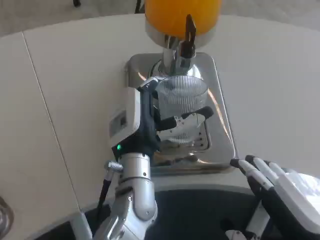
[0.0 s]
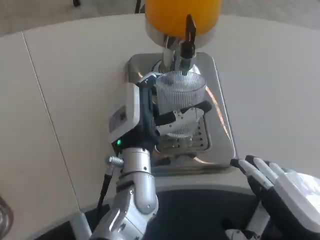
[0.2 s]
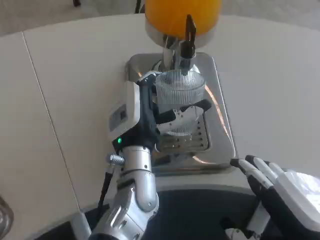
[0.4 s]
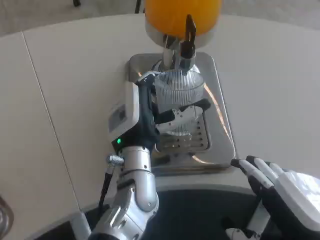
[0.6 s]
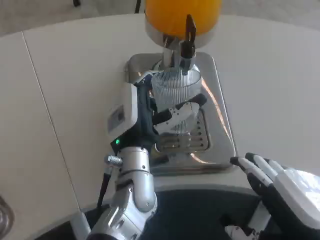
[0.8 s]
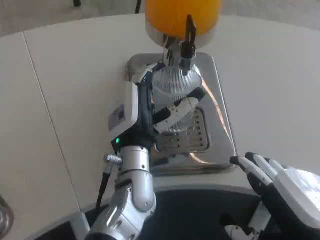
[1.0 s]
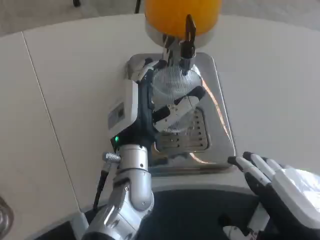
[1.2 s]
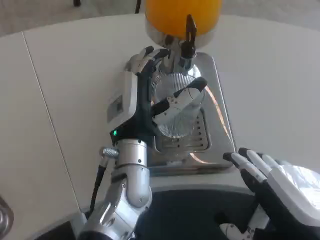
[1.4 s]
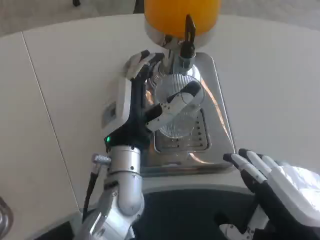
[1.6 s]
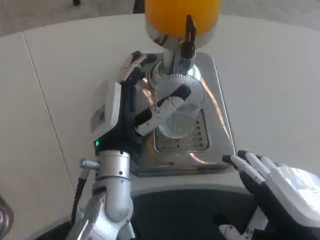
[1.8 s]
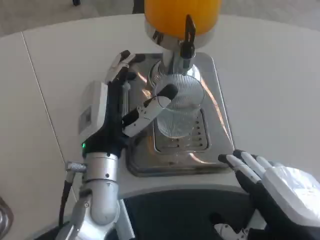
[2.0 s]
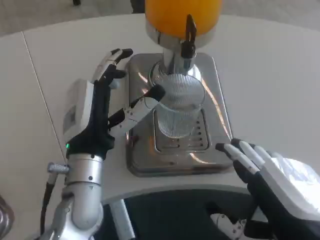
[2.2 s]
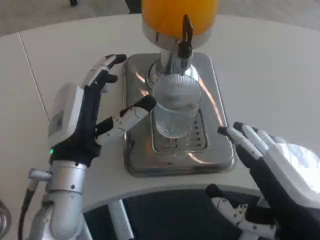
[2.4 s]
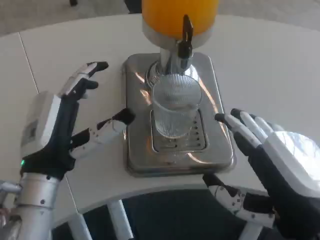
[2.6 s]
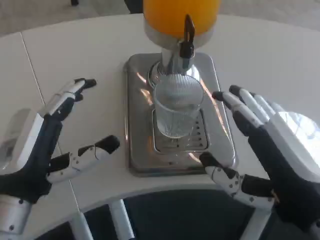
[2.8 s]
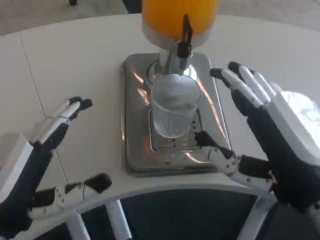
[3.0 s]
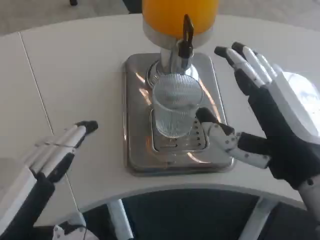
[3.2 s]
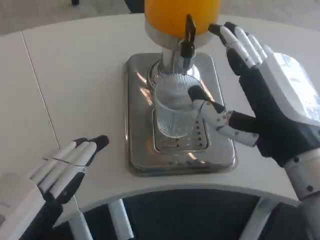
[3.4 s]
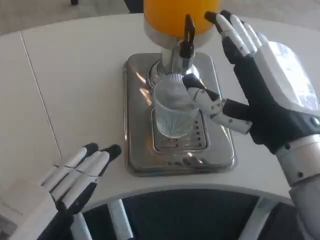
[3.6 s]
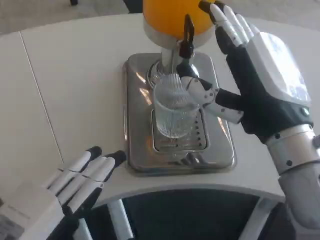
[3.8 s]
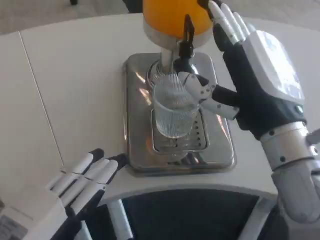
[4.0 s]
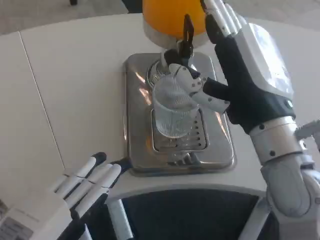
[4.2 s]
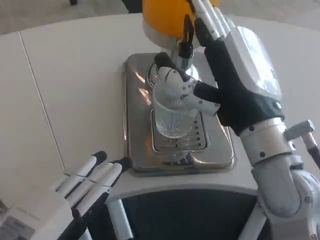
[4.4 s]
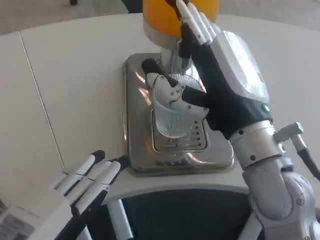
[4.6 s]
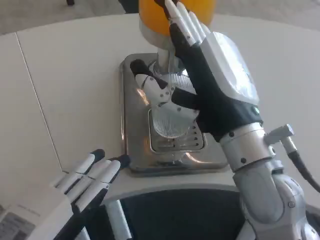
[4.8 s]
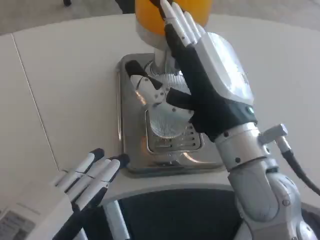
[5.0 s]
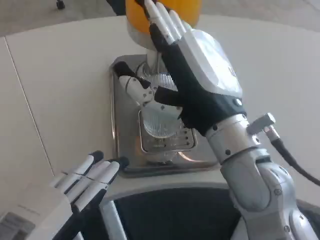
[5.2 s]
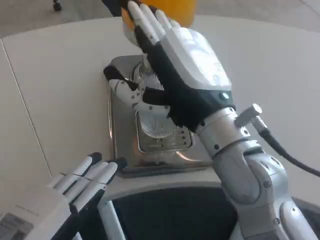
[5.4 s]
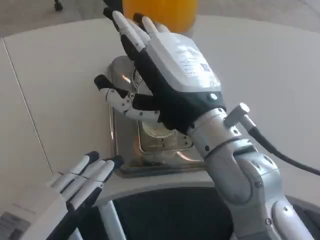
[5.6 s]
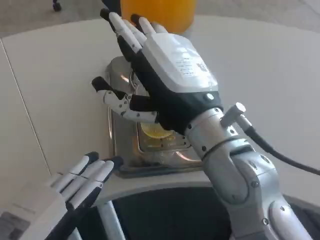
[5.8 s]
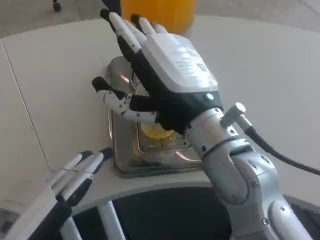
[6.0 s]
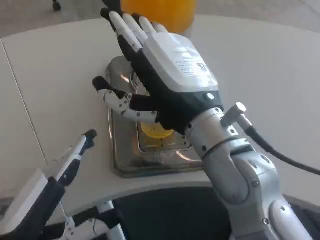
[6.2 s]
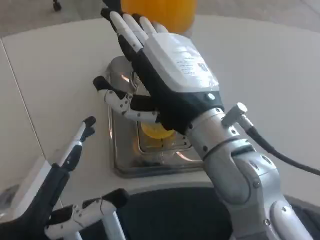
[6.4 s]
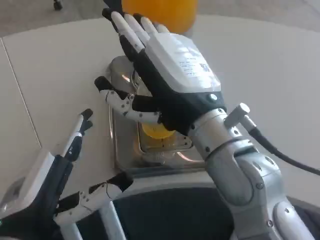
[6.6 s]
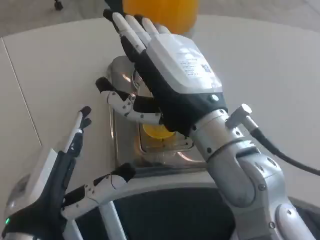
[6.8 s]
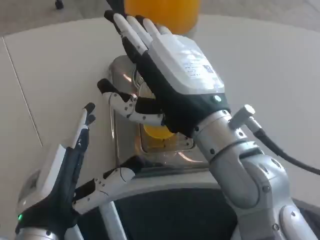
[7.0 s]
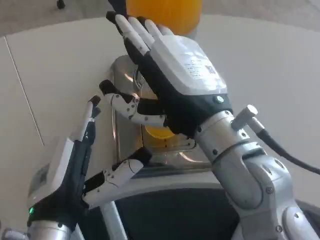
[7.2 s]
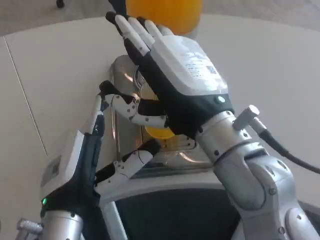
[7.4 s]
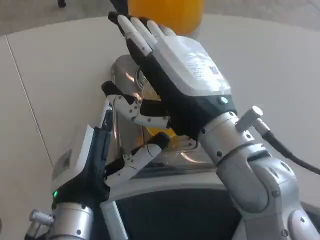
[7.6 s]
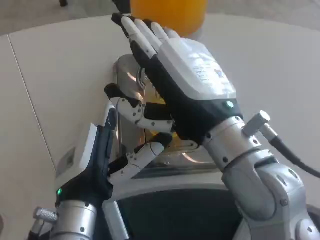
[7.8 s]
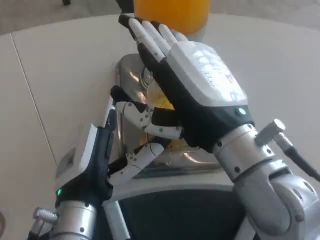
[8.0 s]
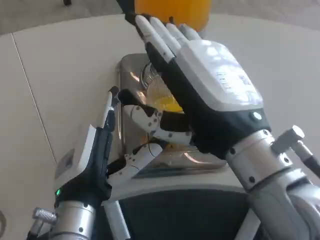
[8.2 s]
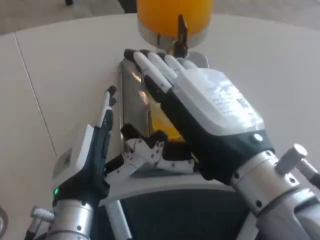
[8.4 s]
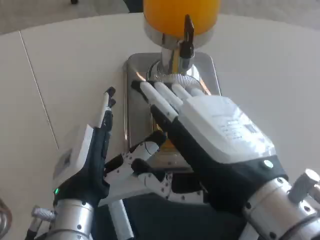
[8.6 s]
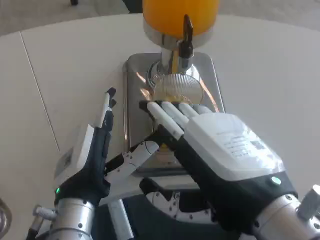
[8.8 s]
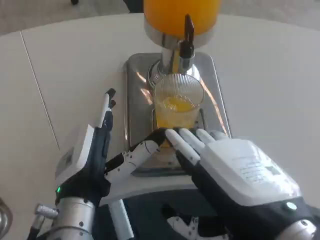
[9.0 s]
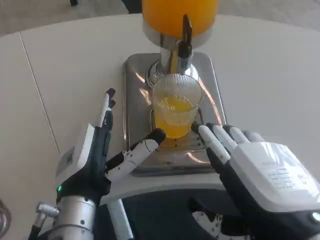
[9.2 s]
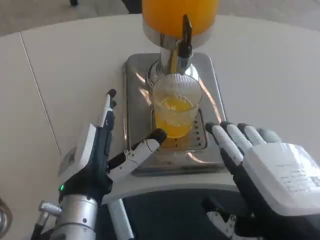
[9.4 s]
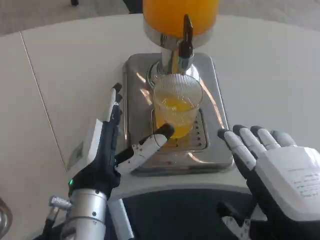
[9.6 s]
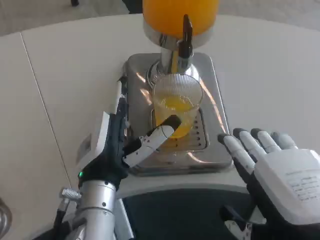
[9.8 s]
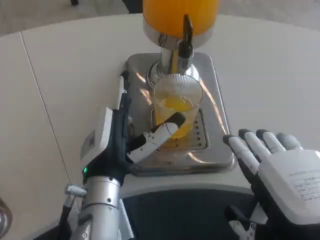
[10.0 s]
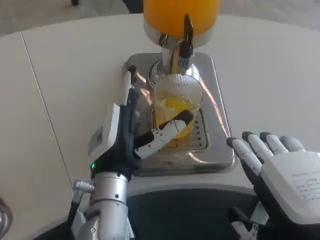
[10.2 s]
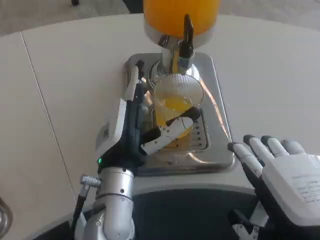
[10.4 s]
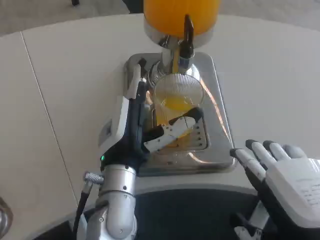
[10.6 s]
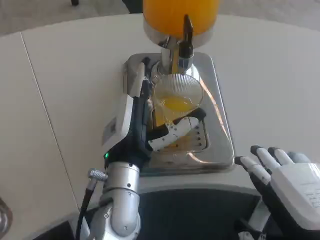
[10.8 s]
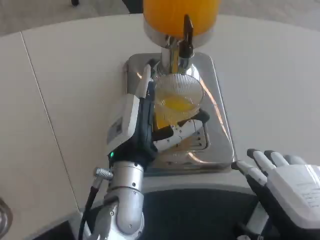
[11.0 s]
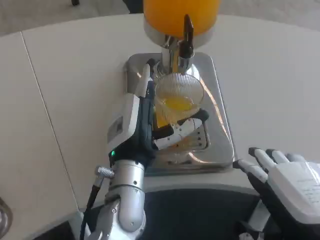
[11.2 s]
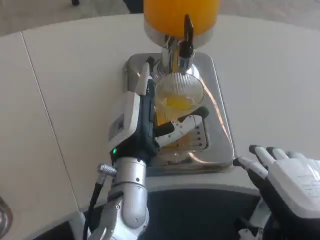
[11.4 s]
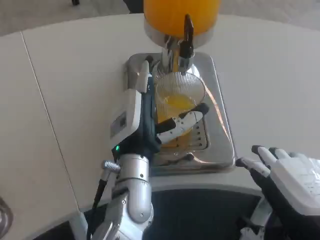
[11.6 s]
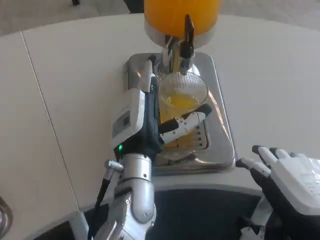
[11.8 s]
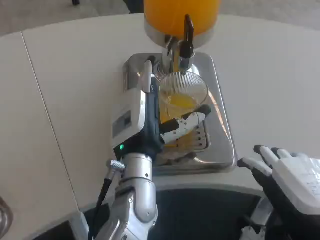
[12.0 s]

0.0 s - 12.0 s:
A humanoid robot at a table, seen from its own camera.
Task of the whole recording: Grasp the cup under the faucet to collect the drink, then remove the cup.
0.0 s - 1.6 s: The hands move only a little.
1.6 s - 3.0 s: The left hand is displaced to the left and backward by roughly 20 cm.
3.0 s - 4.4 s: The left hand heads backward, covering some 5 cm. Meanwhile the right hand goes roughly 10 cm forward.
4.4 s - 6.0 s: The right hand changes place by approximately 5 cm.
6.0 s - 7.6 s: The left hand goes about 15 cm to the right and forward.
7.6 s - 9.0 s: The right hand shifts roughly 10 cm backward.
9.0 s - 10.4 s: The left hand moves forward, about 5 cm.
10.4 s - 12.0 s: The hands stay close to where they were, moving slightly.

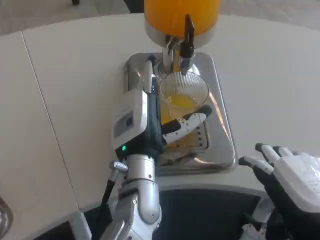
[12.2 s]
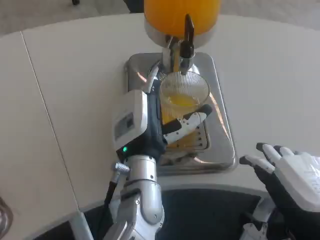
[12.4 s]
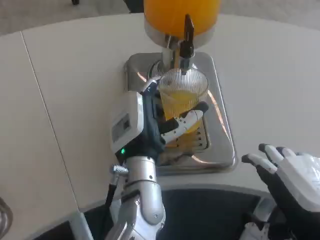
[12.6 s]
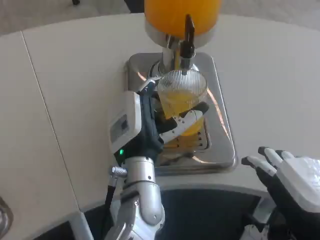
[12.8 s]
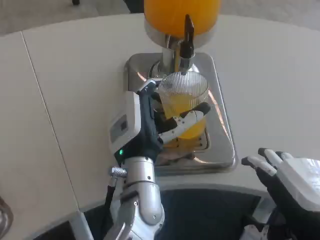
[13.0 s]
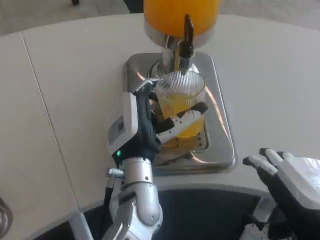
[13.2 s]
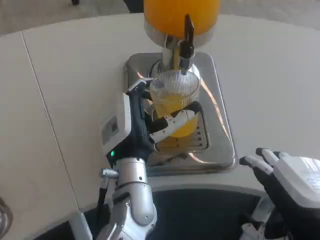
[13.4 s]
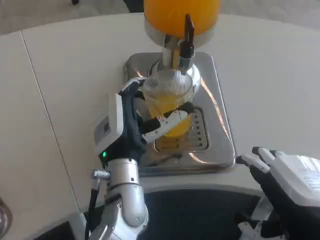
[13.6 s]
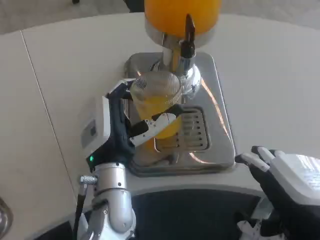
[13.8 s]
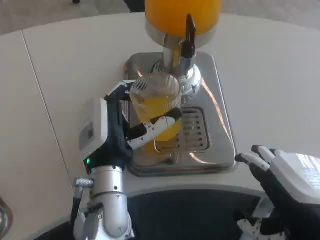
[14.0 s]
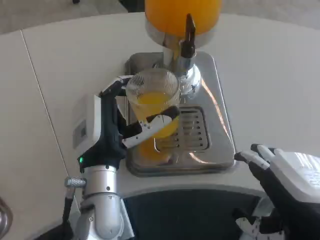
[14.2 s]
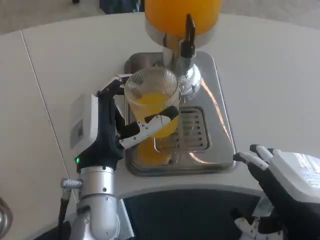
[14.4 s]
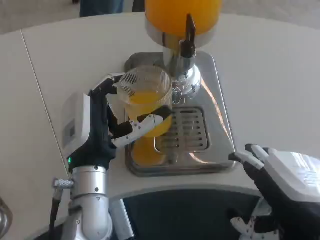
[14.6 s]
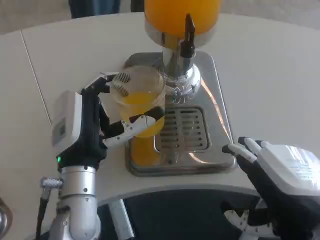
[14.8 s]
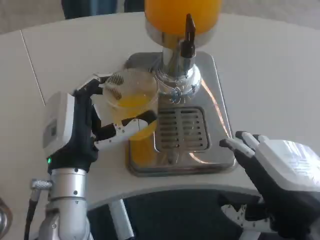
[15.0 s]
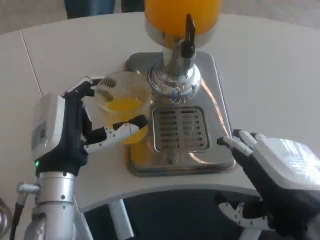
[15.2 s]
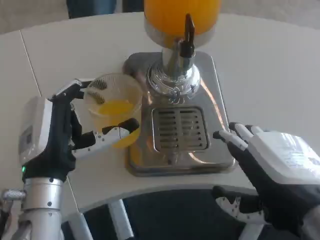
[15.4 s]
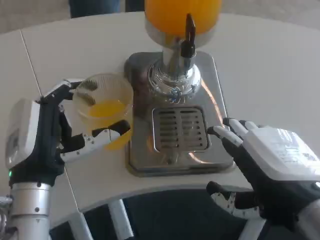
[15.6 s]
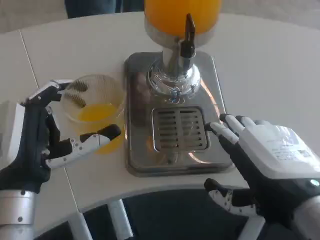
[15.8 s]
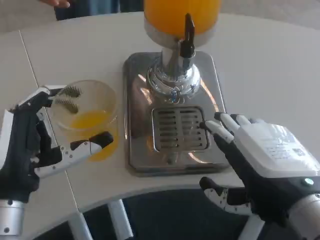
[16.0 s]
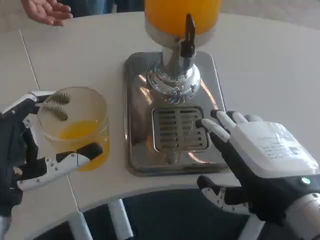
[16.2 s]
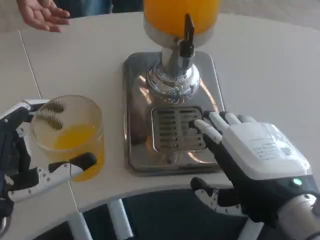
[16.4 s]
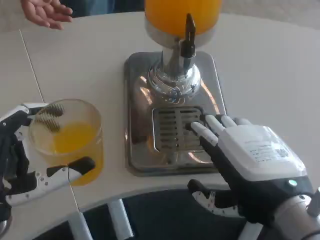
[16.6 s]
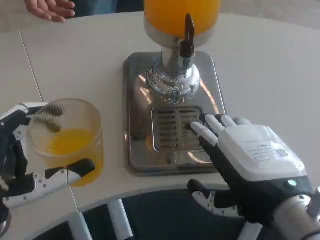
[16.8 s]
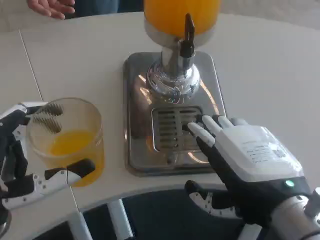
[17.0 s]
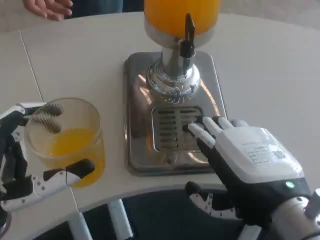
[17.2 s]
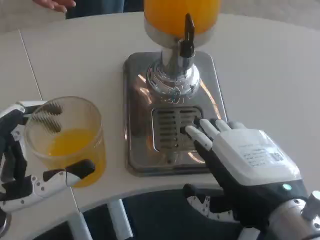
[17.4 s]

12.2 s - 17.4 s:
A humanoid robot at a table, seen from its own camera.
Task of the whole recording: Grasp the cup under the faucet to collect the drink, then remove the cup.
12.2 s - 14.0 s: The hands move only a little.
14.0 s - 15.6 s: The left hand shifts some 10 cm to the left and backward.
15.6 s - 17.4 s: The left hand goes some 10 cm backward.

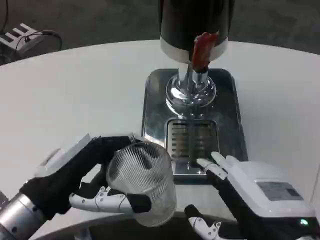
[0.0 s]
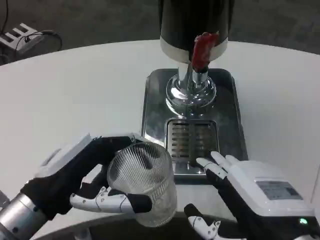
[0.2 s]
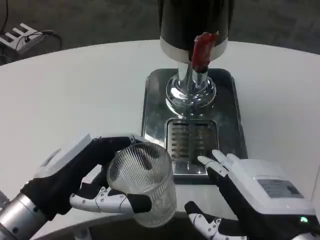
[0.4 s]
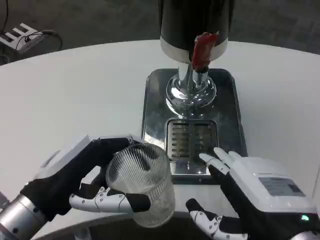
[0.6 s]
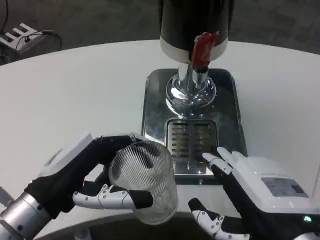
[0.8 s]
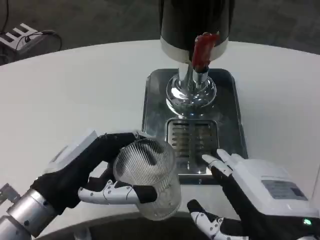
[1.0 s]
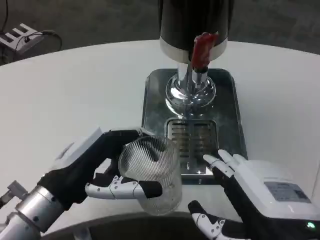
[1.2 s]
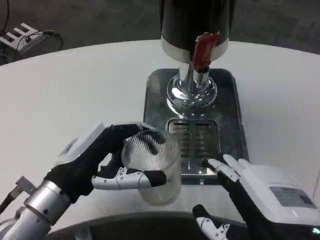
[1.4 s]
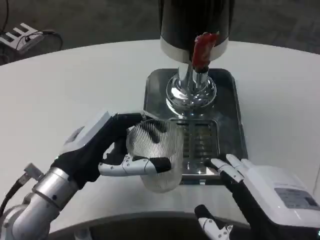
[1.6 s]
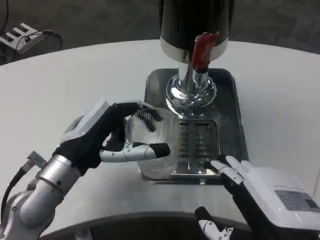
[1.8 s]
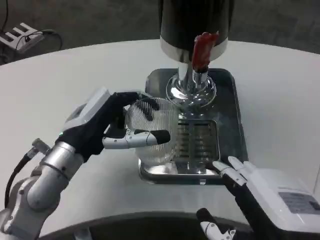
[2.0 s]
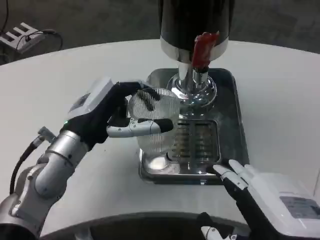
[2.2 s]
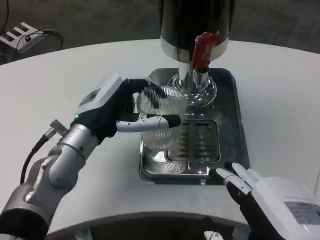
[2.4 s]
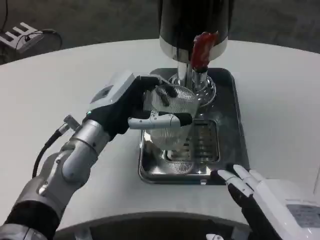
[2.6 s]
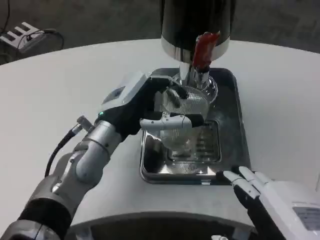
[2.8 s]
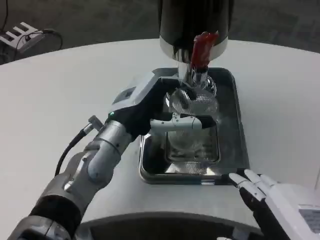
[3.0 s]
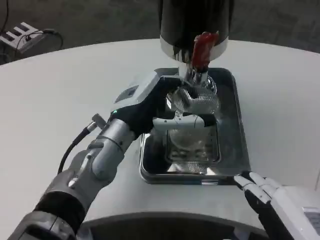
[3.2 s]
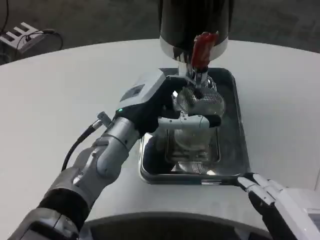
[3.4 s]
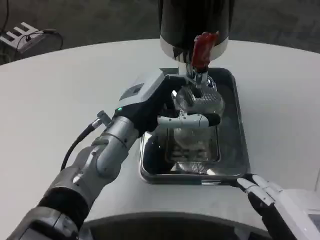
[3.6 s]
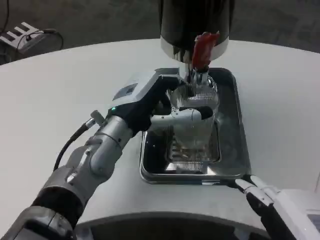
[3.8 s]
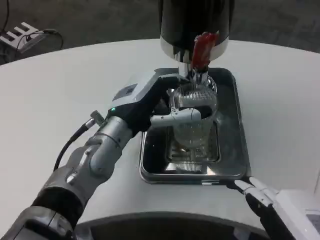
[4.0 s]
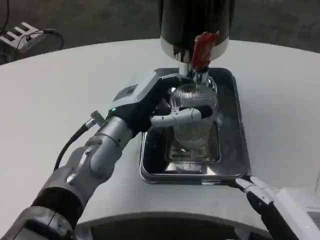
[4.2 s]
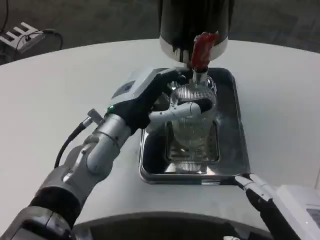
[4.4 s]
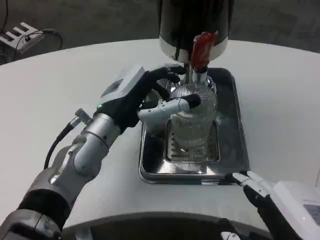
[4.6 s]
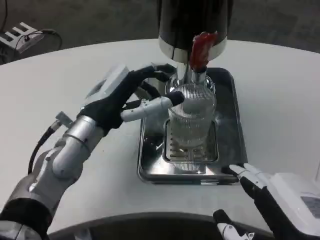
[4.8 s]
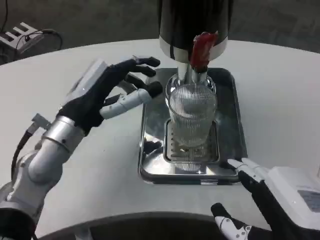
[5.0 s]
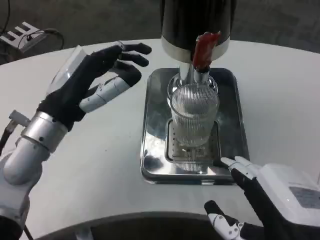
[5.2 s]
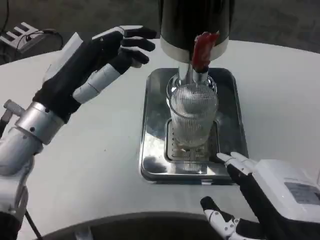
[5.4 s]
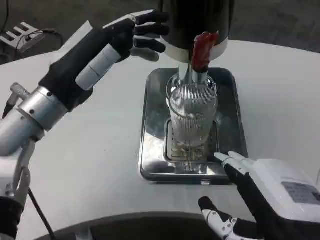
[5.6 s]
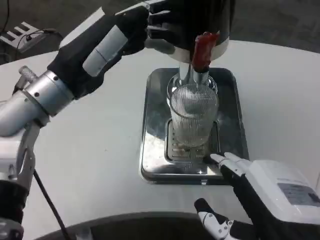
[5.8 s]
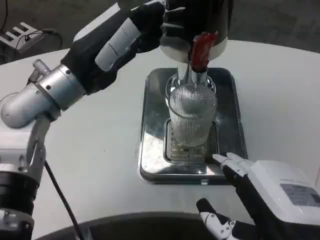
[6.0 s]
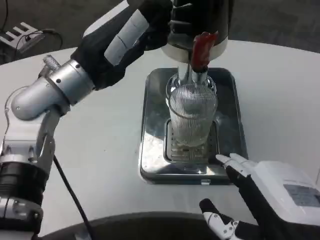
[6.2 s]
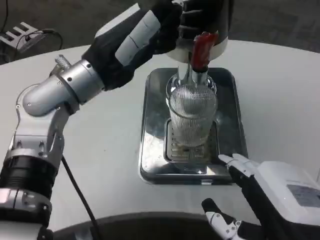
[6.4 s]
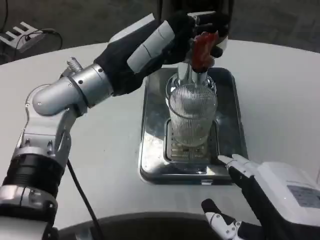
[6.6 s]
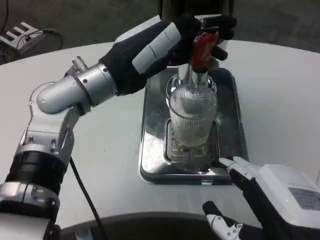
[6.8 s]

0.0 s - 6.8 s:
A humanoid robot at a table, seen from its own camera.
Task of the whole recording: Grasp the cup under the faucet to collect the drink, then remove the cup.
0.0 s - 1.4 s: The hands make only small movements.
1.4 s - 2.8 s: The left hand goes roughly 10 cm forward and to the right.
2.8 s - 4.0 s: There are only small adjustments of the hands.
4.0 s - 5.4 s: The left hand goes roughly 10 cm to the left.
5.4 s - 6.8 s: The left hand moves to the right and upward, roughly 10 cm.
